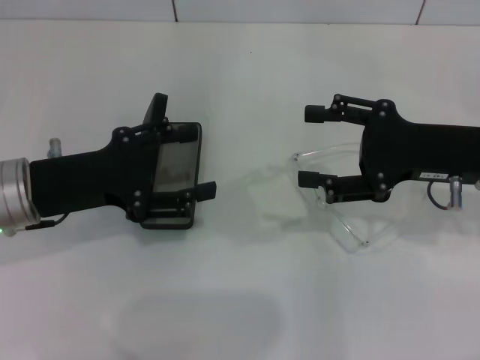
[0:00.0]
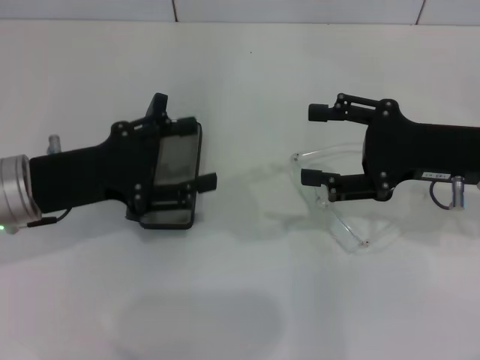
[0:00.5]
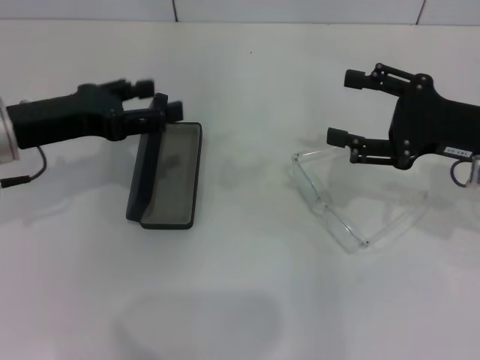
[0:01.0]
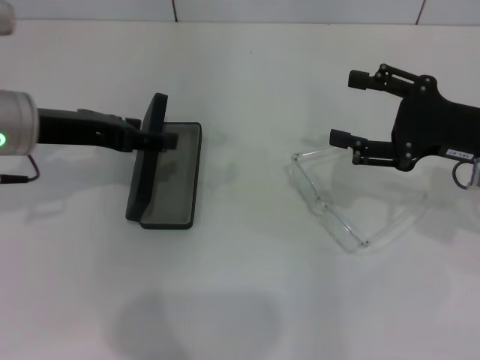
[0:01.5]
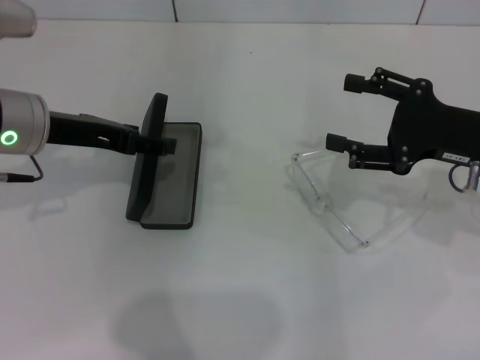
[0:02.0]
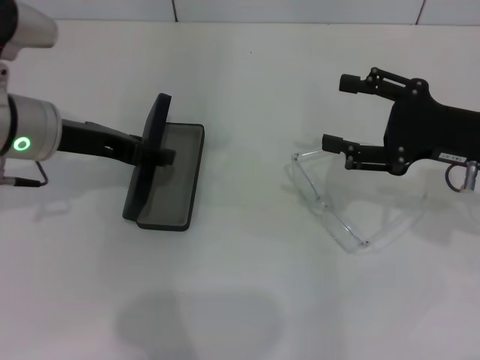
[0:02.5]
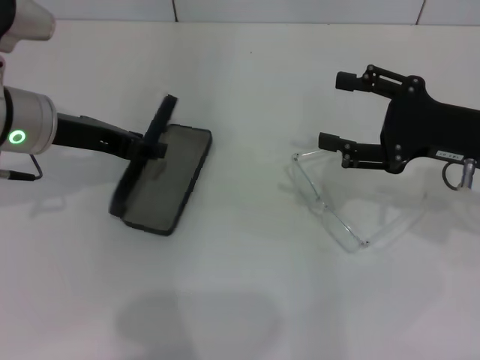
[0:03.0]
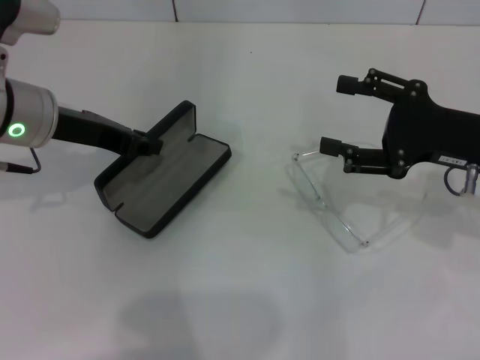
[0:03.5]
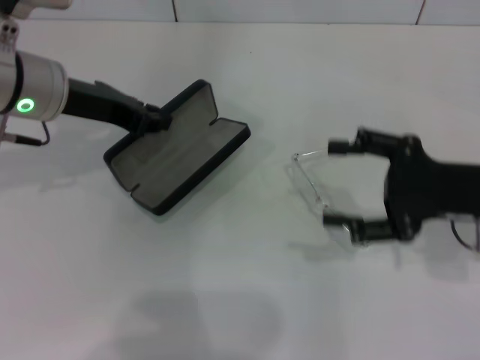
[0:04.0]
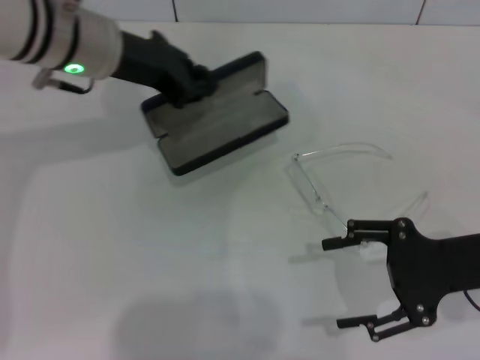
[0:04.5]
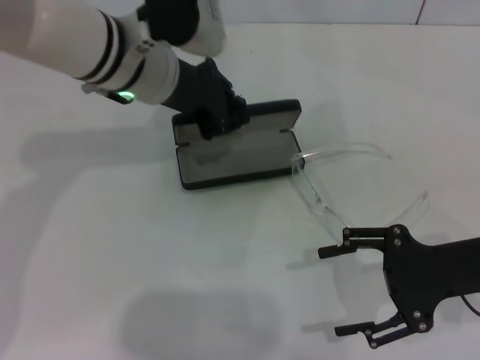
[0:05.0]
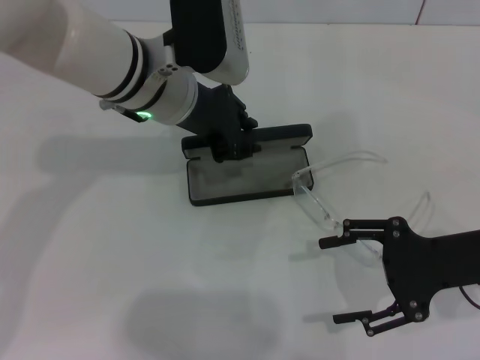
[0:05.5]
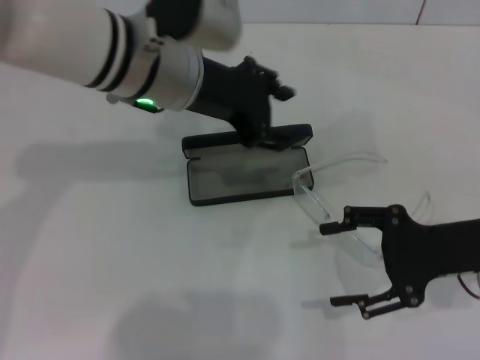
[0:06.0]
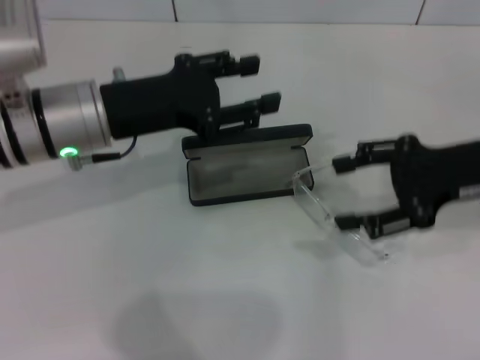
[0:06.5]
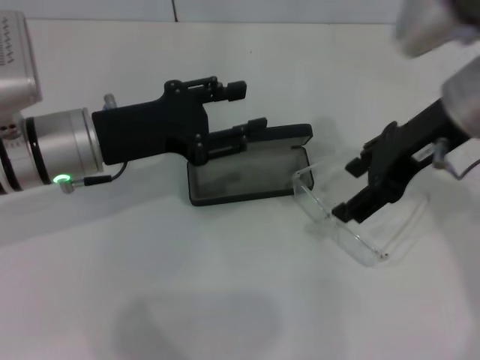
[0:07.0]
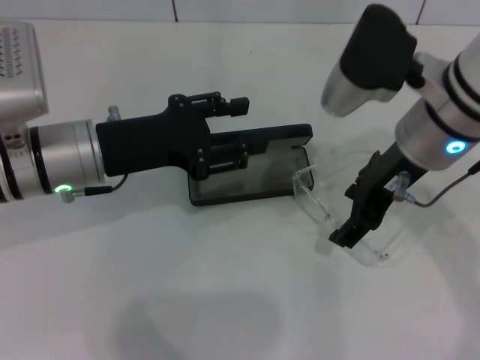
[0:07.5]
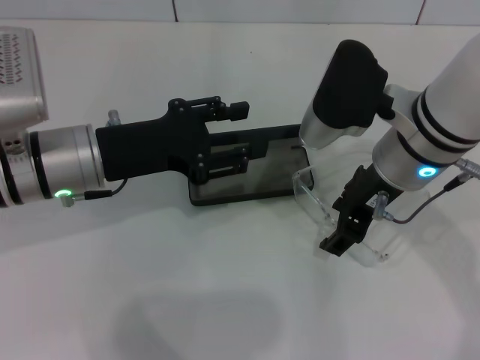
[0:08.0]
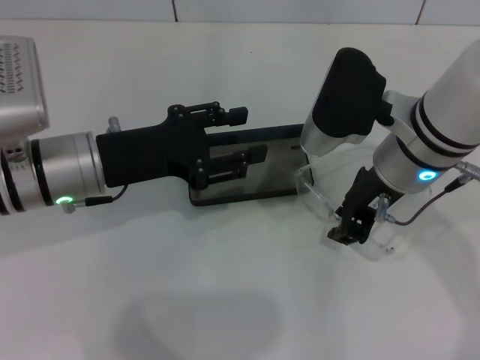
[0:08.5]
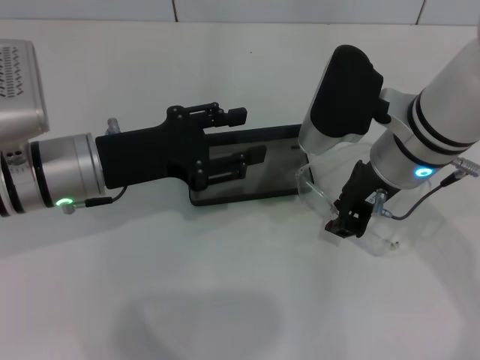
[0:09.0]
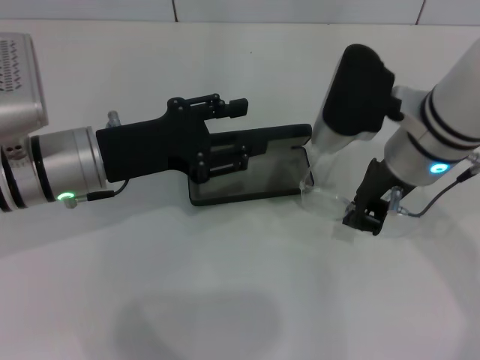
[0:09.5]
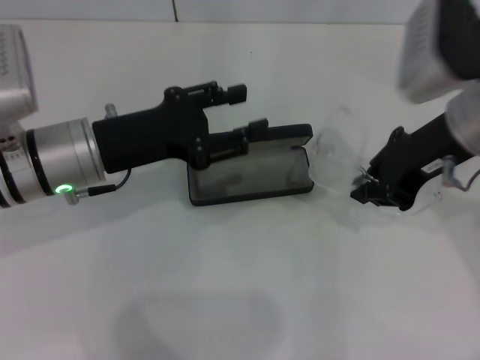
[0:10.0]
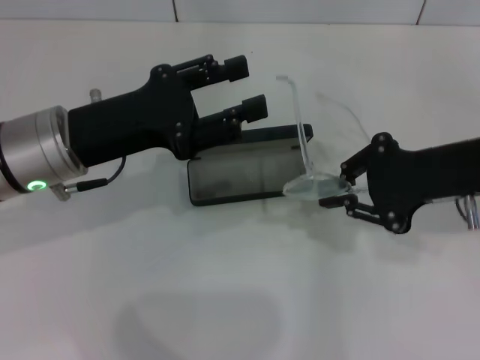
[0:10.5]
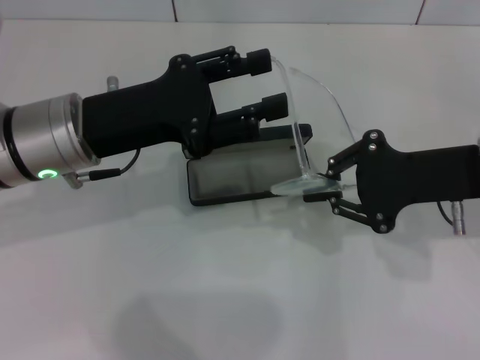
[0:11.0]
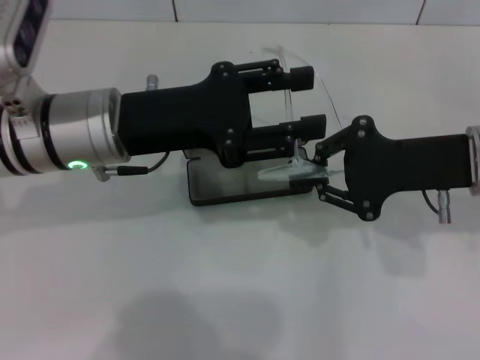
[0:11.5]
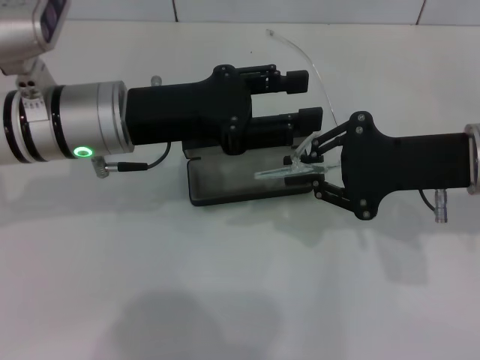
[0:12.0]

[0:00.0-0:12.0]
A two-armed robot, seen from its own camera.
Step, 0:00.0 to 0:03.0: Grab the glasses case with your left hand.
Step, 0:03.5 to 0:05.0: Place the glasses case in the center of the table with your left hand.
Step, 0:05.5 to 0:09.0: Grab the eyeglass frame with your right hand.
0:00.0 to 0:02.0: The left gripper is displaced forward by roughly 5 cm.
0:02.0 to 0:04.0: The left gripper closes its fingers.
0:04.0 to 0:06.0: The left gripper shifts some 10 cm to the right, and opens.
0:06.0 to 0:08.0: The right gripper travels to the left, upward and forward by approximately 15 cm. The left gripper shifts approximately 15 cm to the left, downward and backward.
0:08.0 to 0:10.0: The right gripper heads to the right, covering roughly 5 cm, and closes.
0:10.0 to 0:12.0: The right gripper ends up about 5 cm from where it was, while the left gripper shifts by roughly 5 cm.

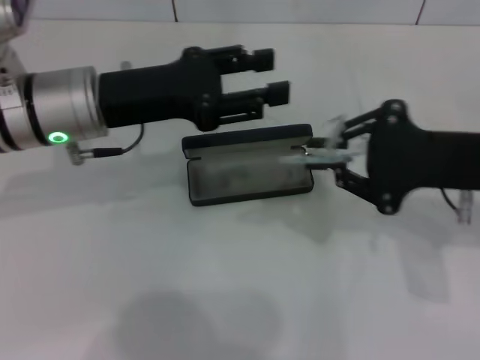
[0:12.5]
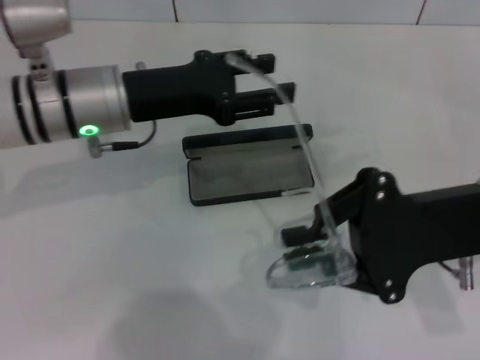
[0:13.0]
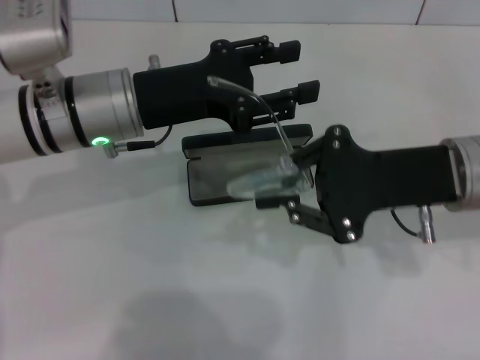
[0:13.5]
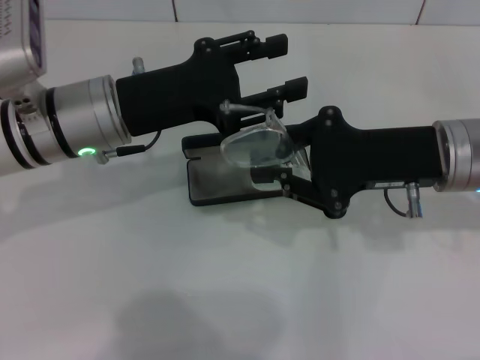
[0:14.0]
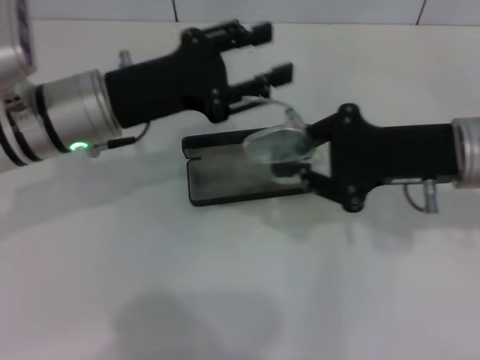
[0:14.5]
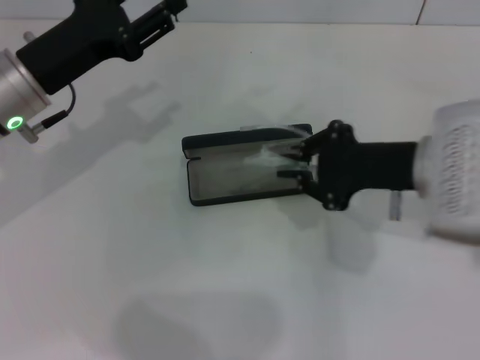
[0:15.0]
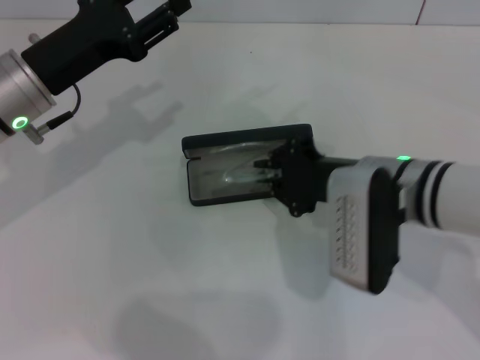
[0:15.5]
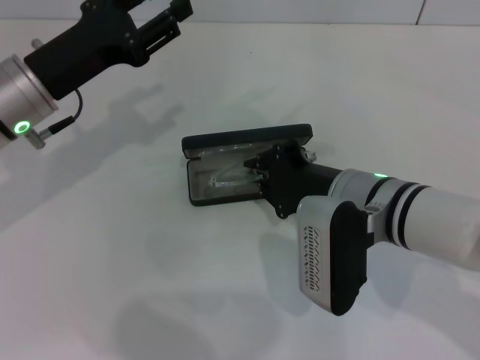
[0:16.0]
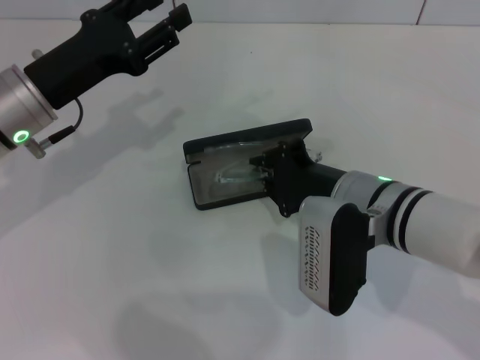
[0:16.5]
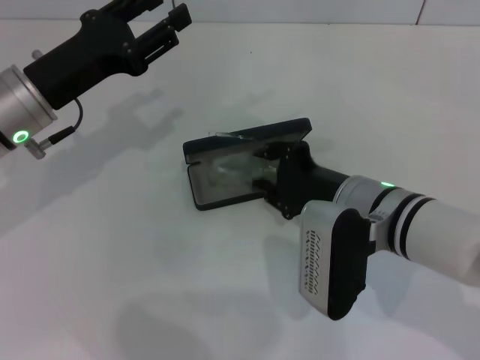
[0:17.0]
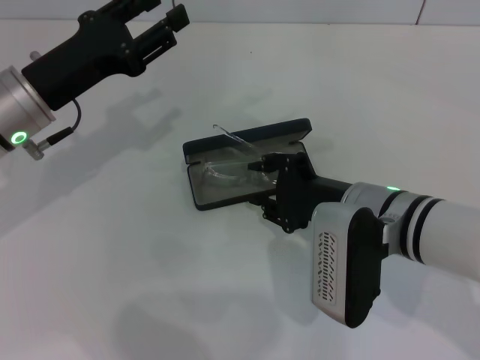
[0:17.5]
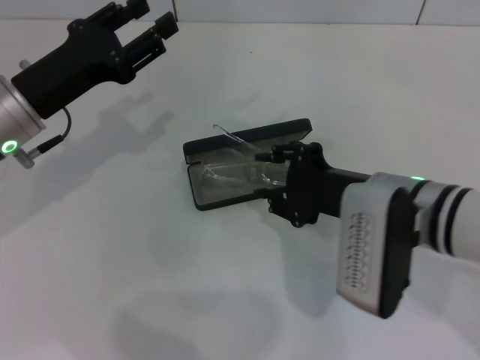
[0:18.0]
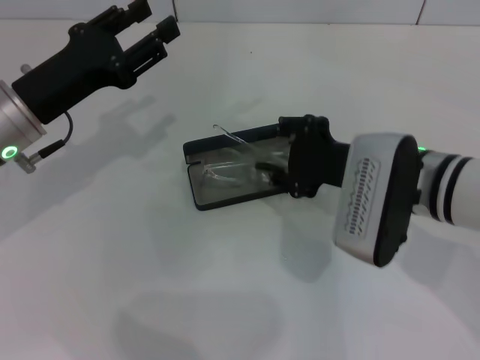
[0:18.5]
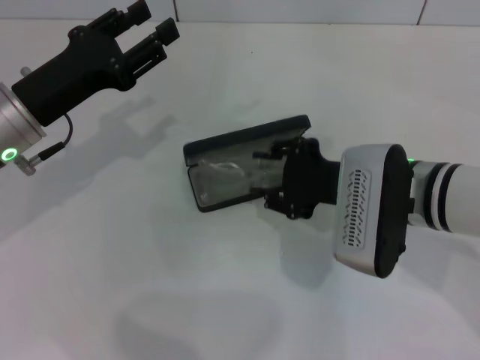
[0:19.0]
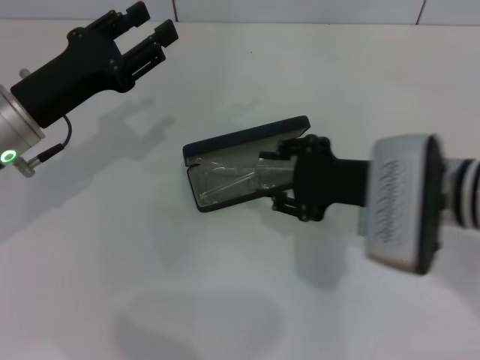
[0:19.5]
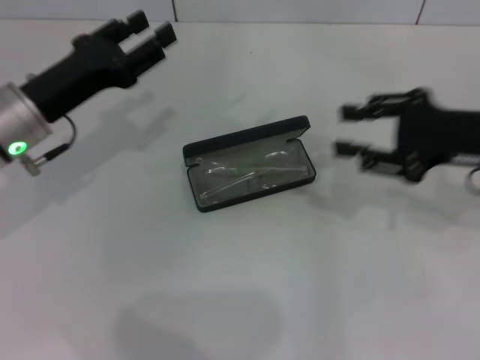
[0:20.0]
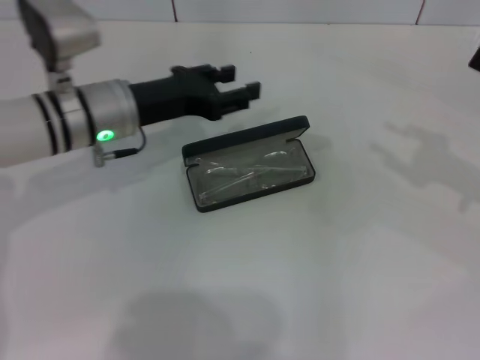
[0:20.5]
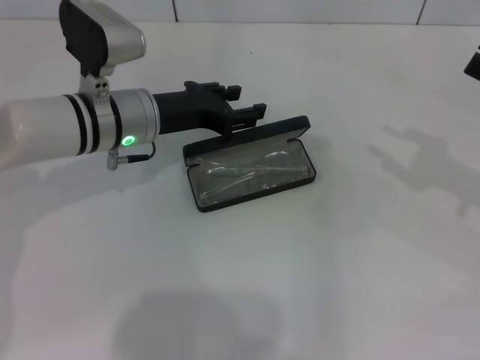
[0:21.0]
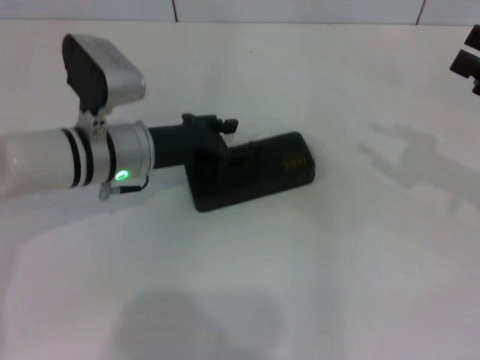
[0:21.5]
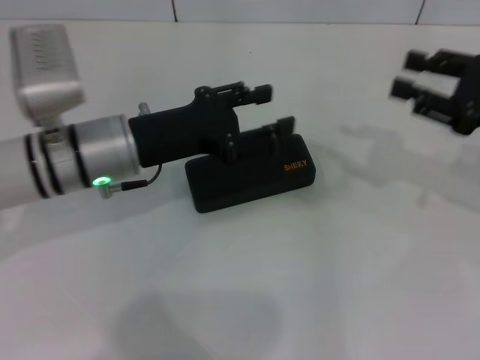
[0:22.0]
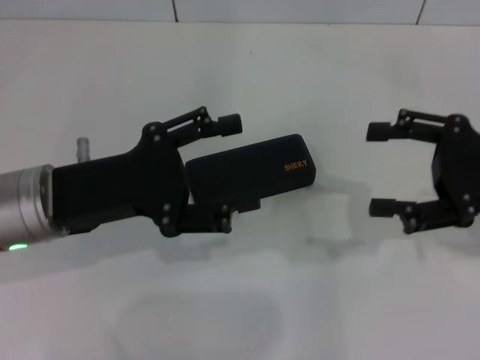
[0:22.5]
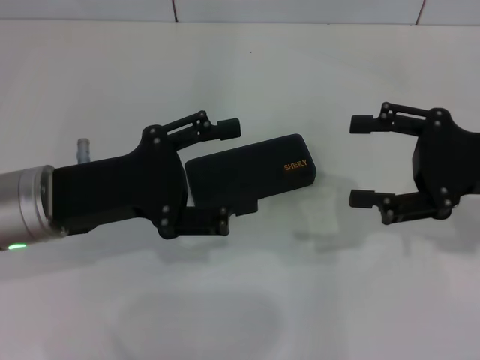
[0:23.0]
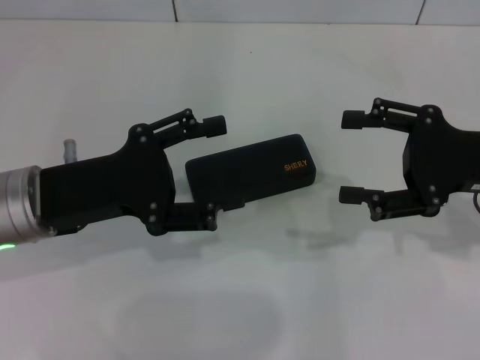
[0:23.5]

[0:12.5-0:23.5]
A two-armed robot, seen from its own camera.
Step, 0:14.5 to 0:19.0: Put the glasses into the case with your right hand.
Step, 0:19.5 to 0:21.5: Close the glasses case with your left hand.
0:14.5 to 0:16.0: The right gripper heads to the left and downward, covering roughly 10 cm; the left gripper goes about 5 cm to the left.
0:16.0 to 0:18.0: The right gripper opens.
0:18.0 to 0:20.0: The right gripper shifts some 10 cm to the right.
0:20.0 to 0:21.5: Both grippers travel together to the right, roughly 10 cm.
0:21.5 to 0:23.5: The right gripper moves to the left, about 10 cm, and opens up; the left gripper shifts some 10 cm backward, to the left and upward.

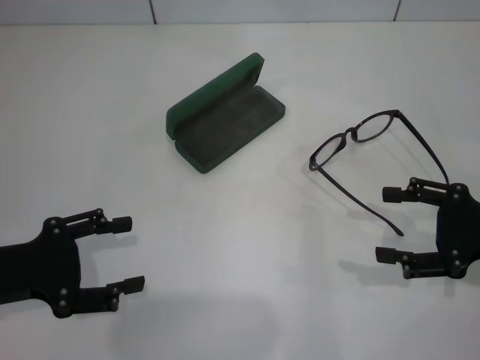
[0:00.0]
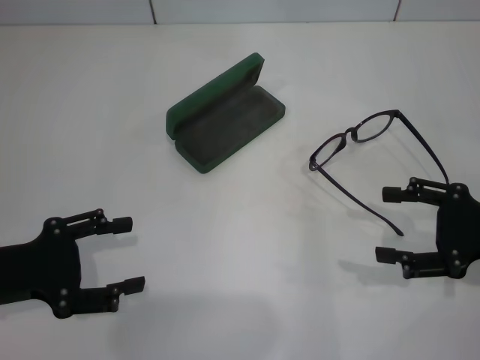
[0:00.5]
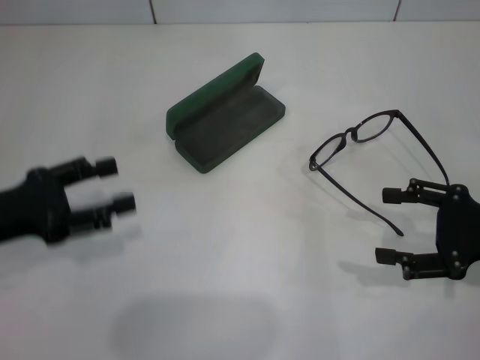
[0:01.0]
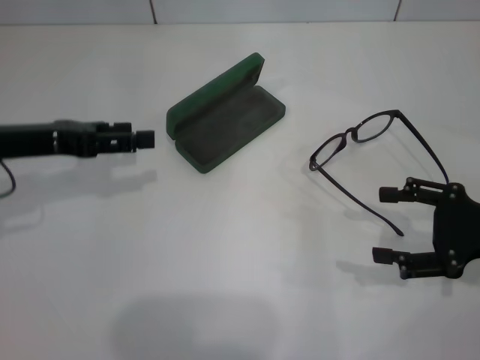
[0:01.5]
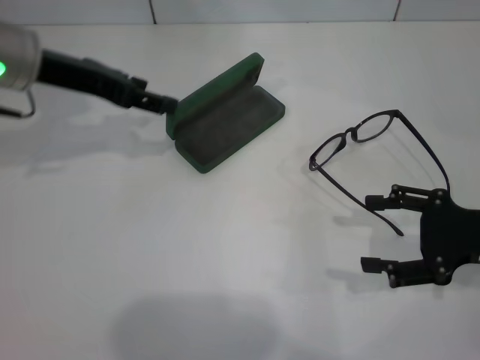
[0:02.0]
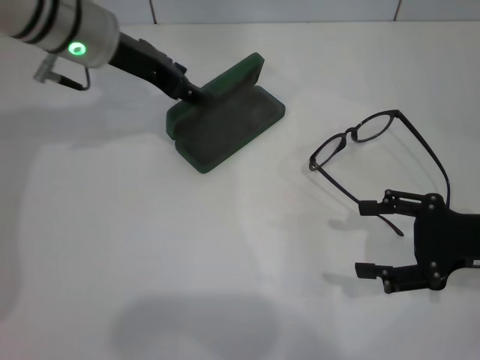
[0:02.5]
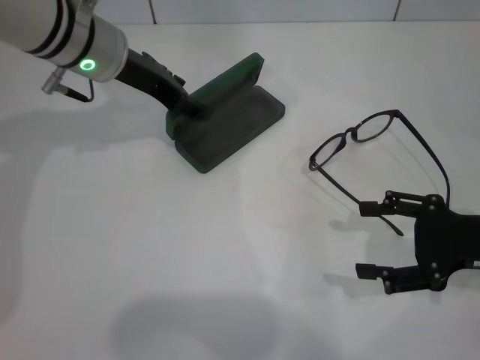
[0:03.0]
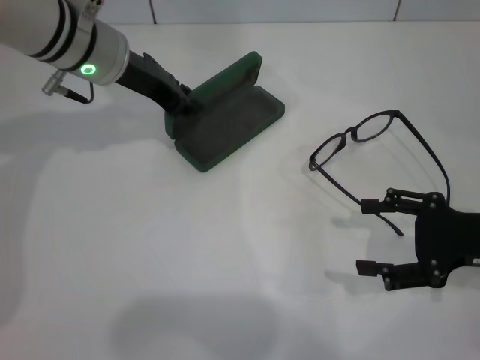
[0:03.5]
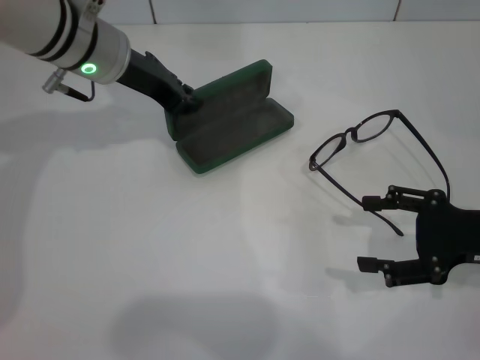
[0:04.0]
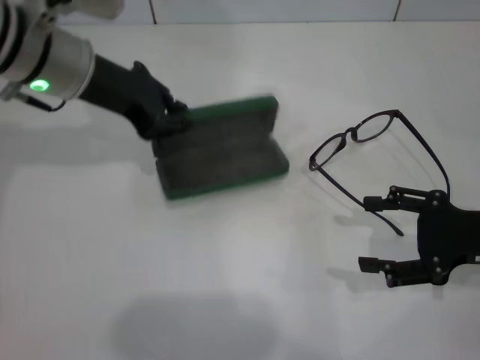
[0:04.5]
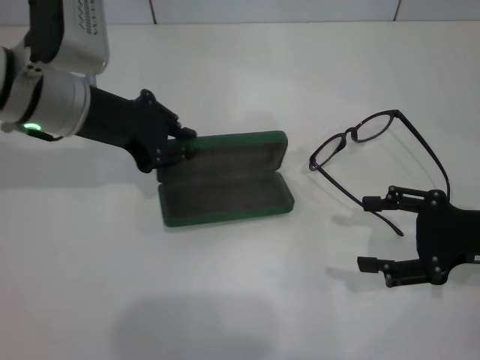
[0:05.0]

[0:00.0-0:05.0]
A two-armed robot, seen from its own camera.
Step, 0:00.0 to 0:03.5: Grab the glasses case with your left hand.
0:00.0 to 0:02.5: The left gripper shifts roughly 25 cm forward, to the right and upward.
0:02.5 to 0:05.0: The left gripper goes approximately 5 cm backward, and closes.
